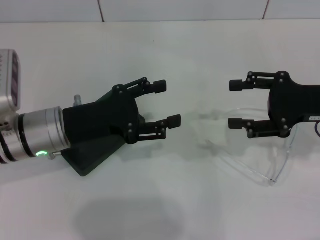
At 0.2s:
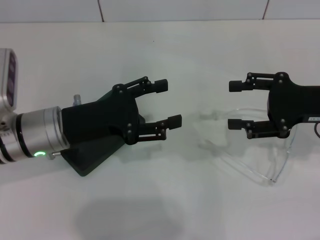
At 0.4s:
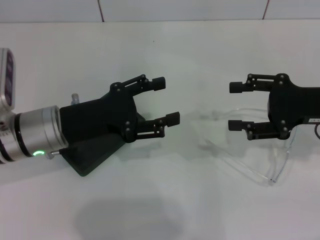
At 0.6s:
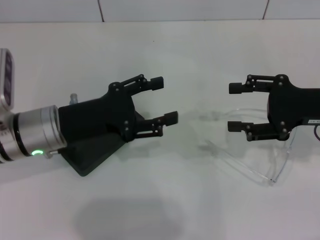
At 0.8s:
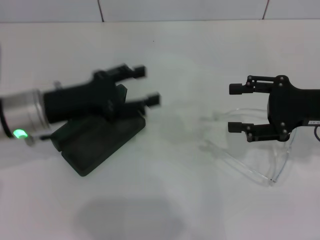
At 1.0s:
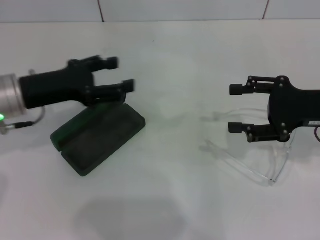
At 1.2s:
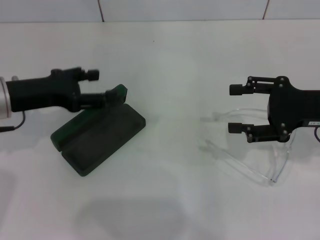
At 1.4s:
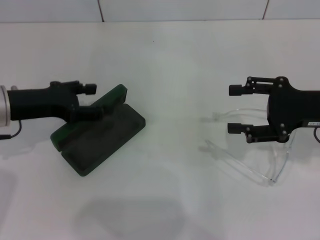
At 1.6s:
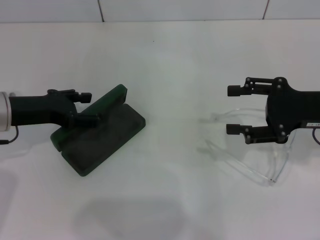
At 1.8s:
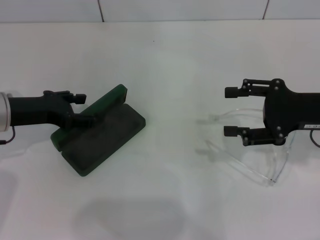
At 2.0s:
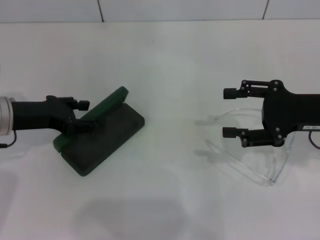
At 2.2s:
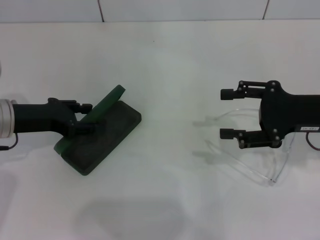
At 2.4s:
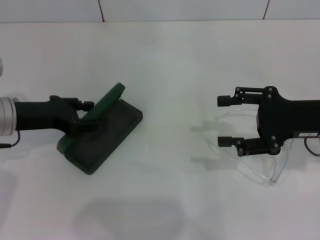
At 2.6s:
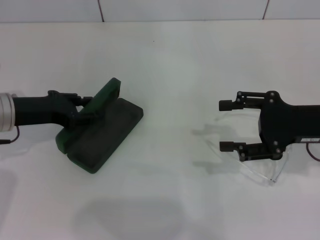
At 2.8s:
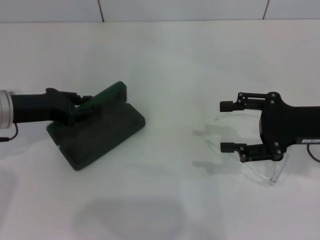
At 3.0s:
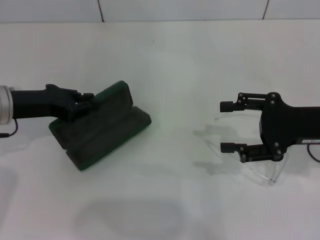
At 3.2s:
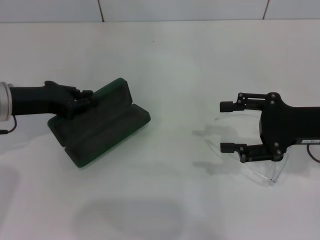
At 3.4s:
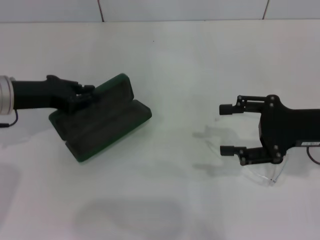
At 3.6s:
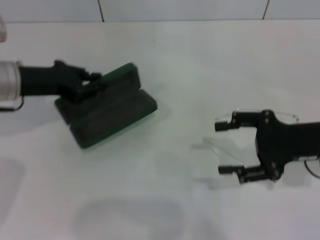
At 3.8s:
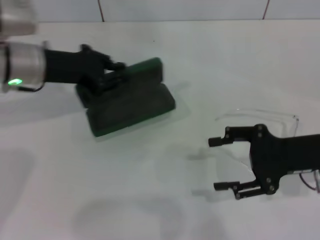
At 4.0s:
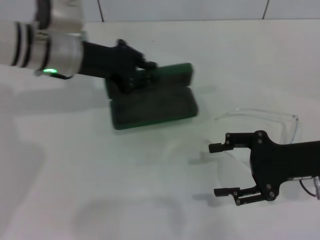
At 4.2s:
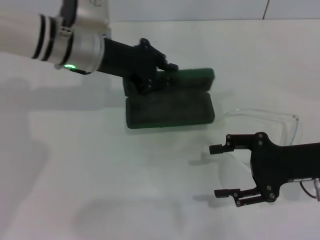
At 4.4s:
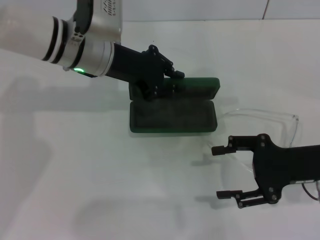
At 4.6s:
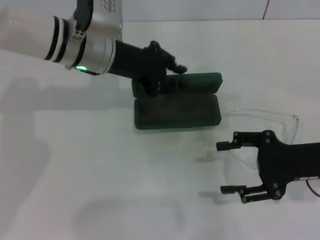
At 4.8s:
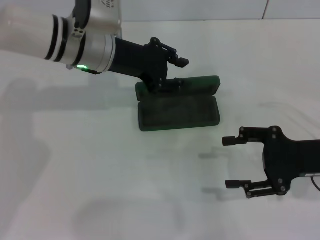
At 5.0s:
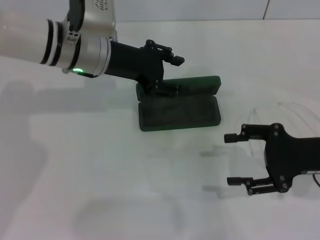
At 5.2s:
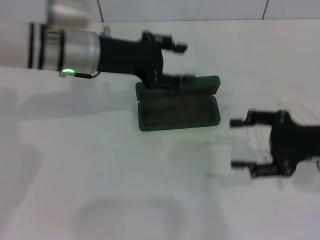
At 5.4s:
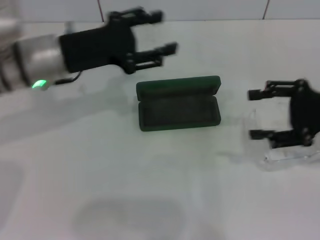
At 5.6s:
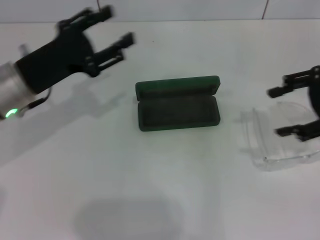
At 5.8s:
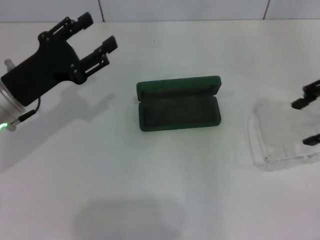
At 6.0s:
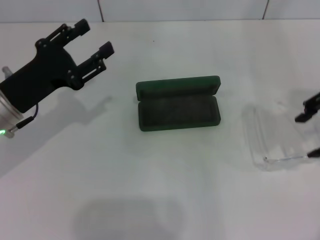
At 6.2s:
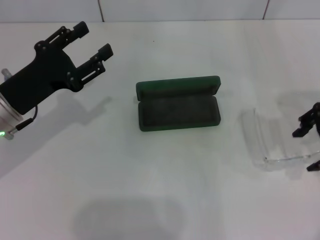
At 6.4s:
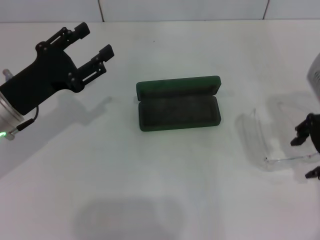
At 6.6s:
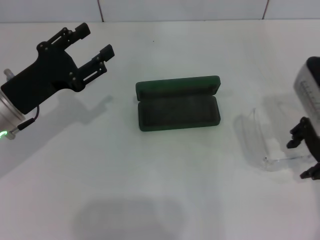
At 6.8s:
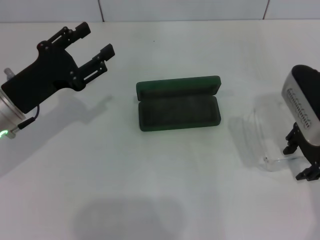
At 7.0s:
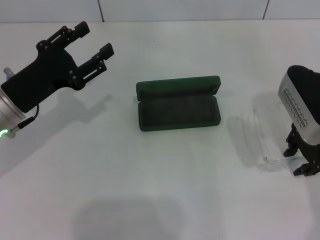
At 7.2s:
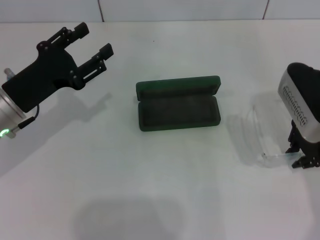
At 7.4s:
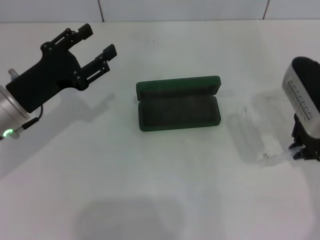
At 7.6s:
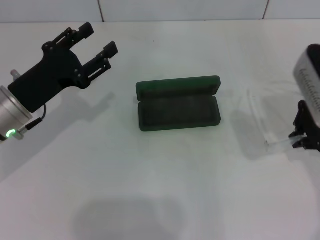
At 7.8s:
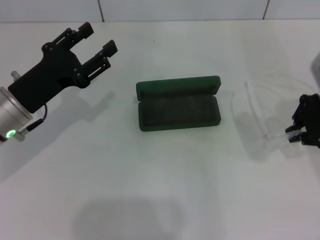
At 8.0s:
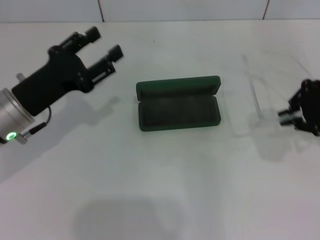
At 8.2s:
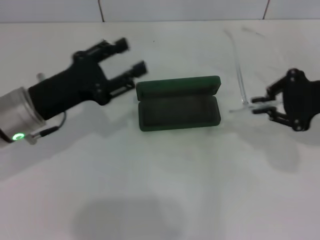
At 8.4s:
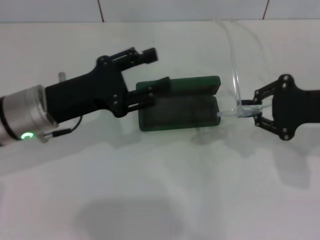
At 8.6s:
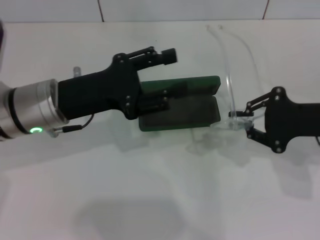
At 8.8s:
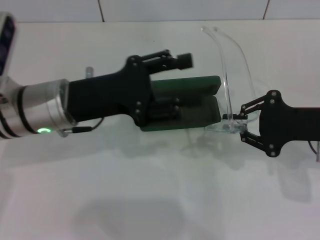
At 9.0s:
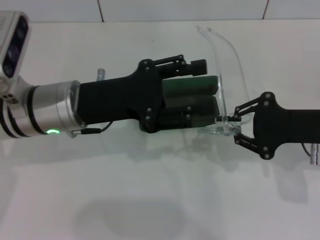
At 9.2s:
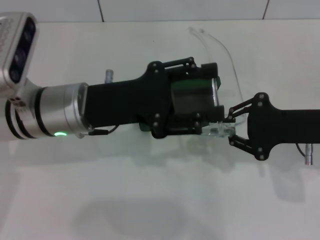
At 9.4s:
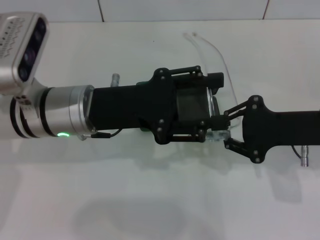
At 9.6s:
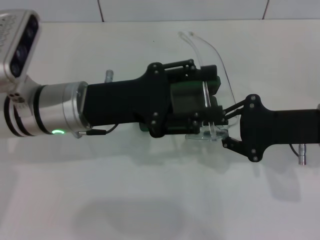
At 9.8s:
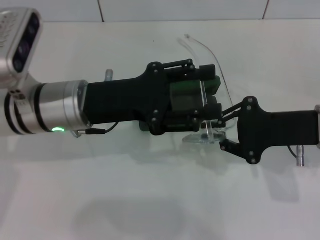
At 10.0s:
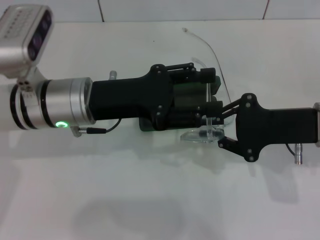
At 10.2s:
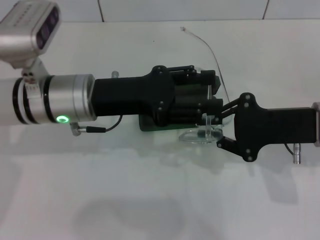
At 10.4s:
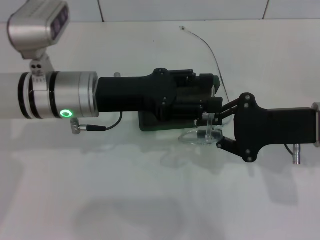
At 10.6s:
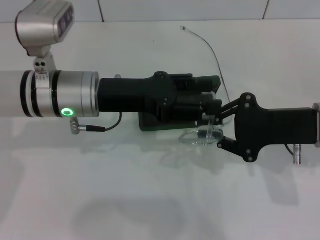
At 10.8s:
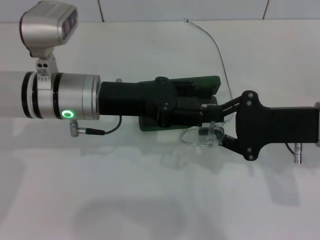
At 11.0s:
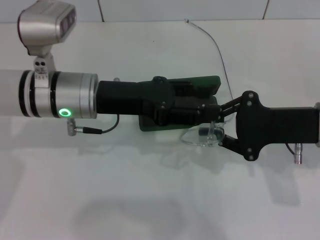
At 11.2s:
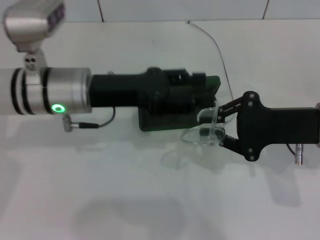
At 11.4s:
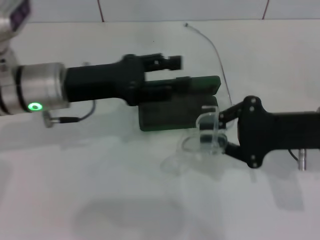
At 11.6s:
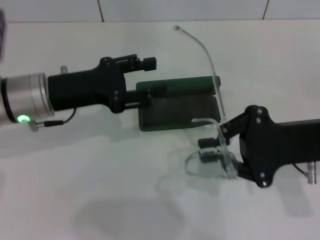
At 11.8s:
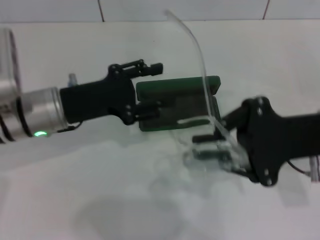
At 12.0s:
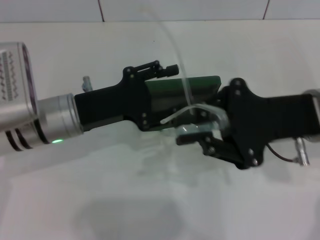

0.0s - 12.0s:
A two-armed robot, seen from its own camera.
Step, 0.0s - 2.6s: Grab the glasses case with your left hand.
Step, 3.0s - 4.6s: Place the glasses case in the center of the table with your left hand.
Step, 5.0s - 7.2s: Grab the eyeglass frame with your right hand.
0.0s - 1.6s: The left gripper goes roughly 10 cm to the left.
1.6s - 3.0s: The left gripper closes.
3.0s - 4.4s: The left gripper shifts some 15 cm to the right and forward.
4.4s - 6.0s: The left gripper heads to the left, backward and downward, covering some 15 cm, and opens up; the right gripper shifts roughly 15 cm upward.
6.0s - 7.6s: The right gripper shifts by approximately 5 cm, and closes up.
7.6s - 9.0s: The right gripper is displaced downward by some 5 cm, while the left gripper moves to the right, about 10 cm.
10.4s - 12.0s: The left gripper changes place by about 5 cm.

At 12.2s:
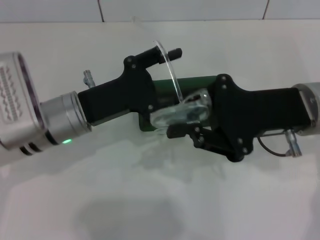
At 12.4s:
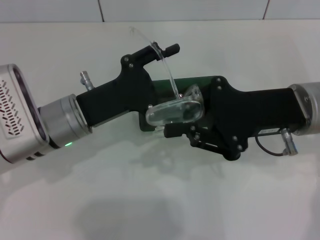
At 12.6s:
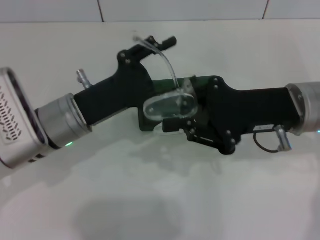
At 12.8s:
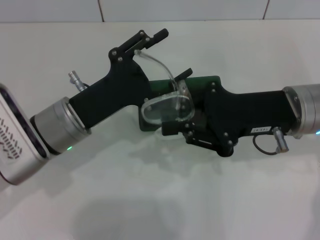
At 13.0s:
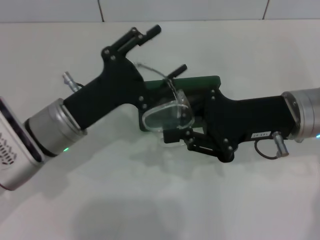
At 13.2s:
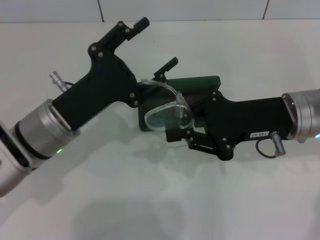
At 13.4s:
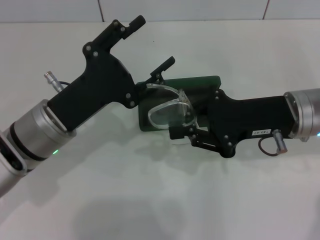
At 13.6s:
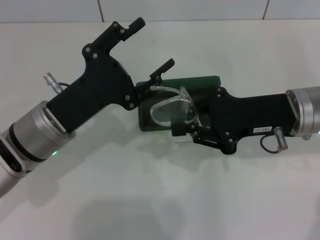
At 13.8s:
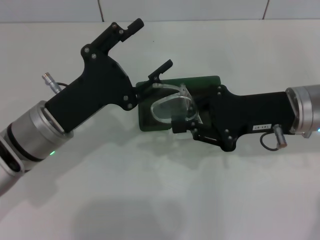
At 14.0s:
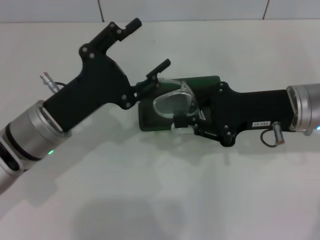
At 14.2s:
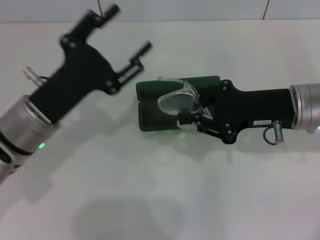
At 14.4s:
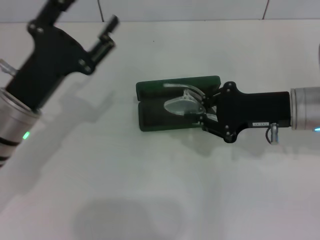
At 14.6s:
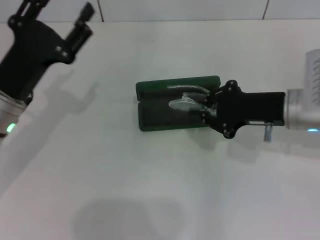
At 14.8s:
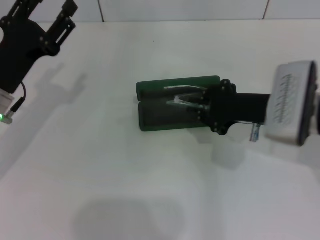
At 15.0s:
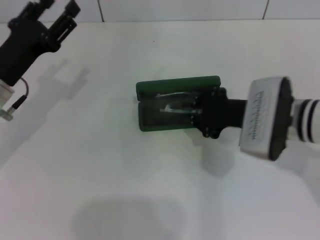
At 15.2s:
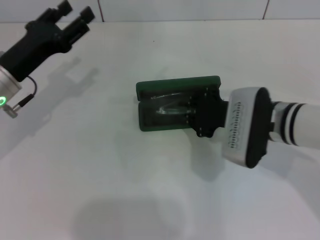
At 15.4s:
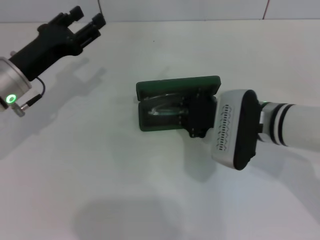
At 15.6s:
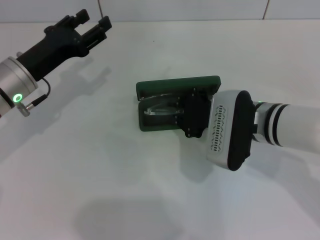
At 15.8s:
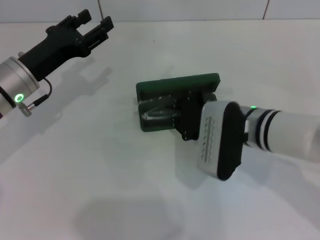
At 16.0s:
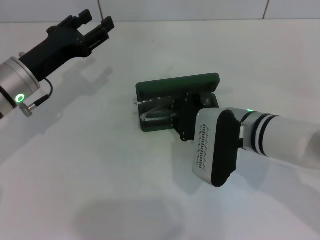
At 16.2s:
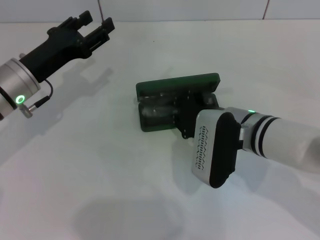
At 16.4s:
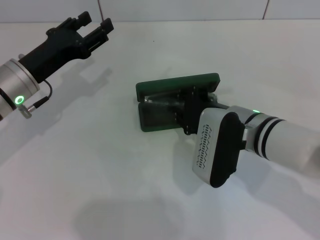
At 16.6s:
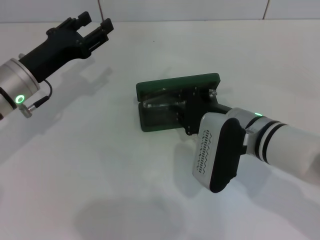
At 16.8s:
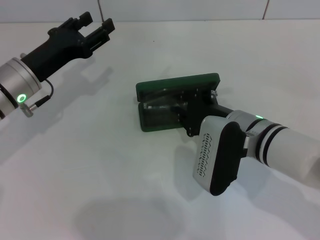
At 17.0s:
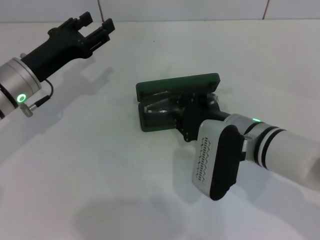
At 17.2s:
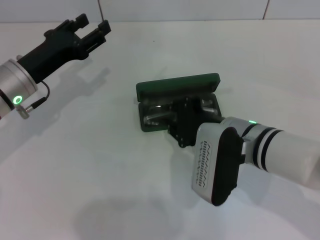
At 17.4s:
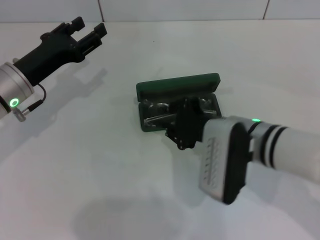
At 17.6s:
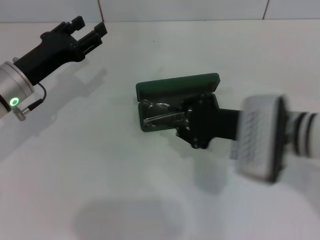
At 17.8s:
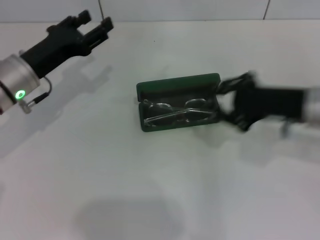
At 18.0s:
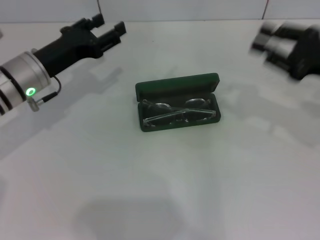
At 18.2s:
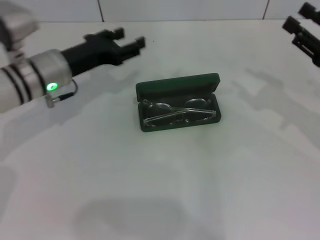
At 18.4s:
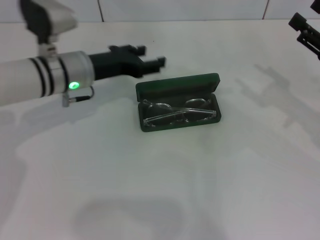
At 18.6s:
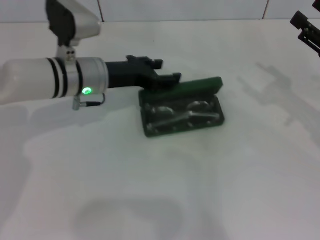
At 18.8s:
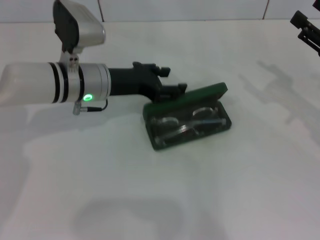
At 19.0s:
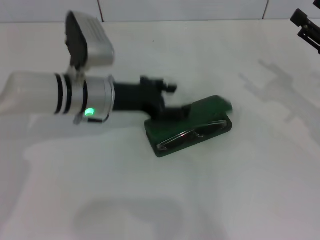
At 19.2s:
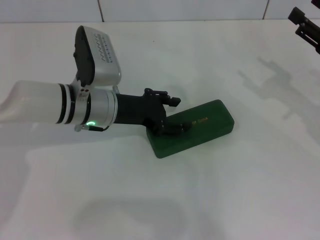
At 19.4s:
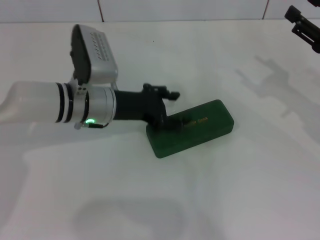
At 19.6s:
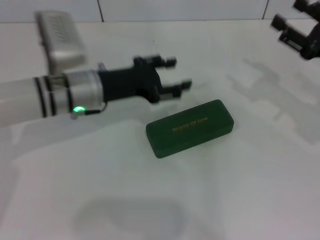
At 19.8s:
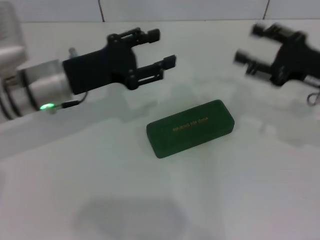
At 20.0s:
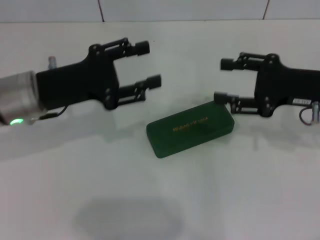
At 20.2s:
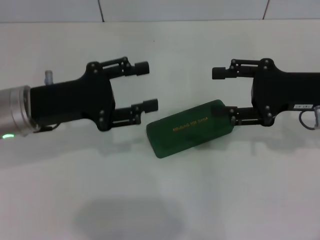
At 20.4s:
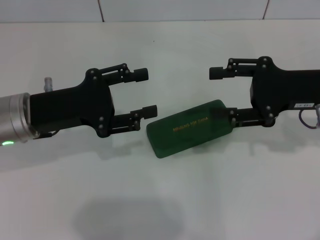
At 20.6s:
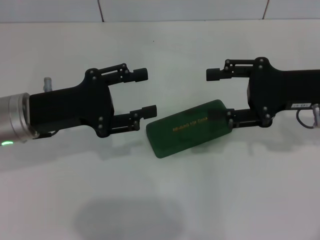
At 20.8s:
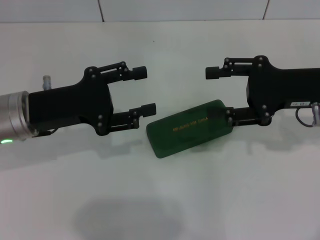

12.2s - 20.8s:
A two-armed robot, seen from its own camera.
Step, 14.2s - 17.2s: Put the glasses into the case with your right hand.
Step, 17.4s - 19.0s: Close the glasses case with your left hand.
13.6s - 15.0s: The right gripper shifts by about 5 cm. Meanwhile the left gripper heads to the left, covering about 10 cm.
15.0s - 16.6s: The right gripper moves roughly 5 cm.
16.6s - 18.0s: The right gripper moves to the right, approximately 20 cm.
18.0s - 19.4s: The left gripper is displaced to the right by some 10 cm; the right gripper opens up.
19.4s - 20.8s: The right gripper is displaced to the left by about 5 cm; the left gripper shifts roughly 10 cm to the left and backward.

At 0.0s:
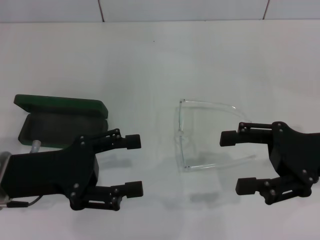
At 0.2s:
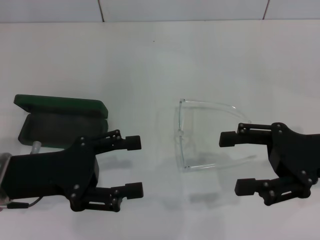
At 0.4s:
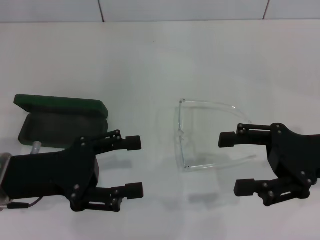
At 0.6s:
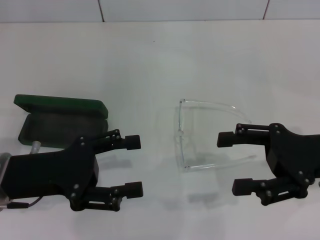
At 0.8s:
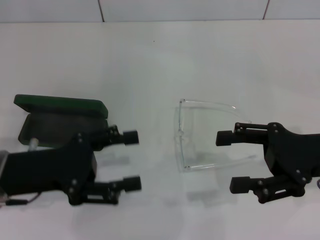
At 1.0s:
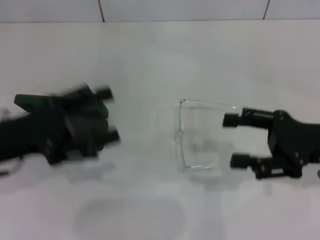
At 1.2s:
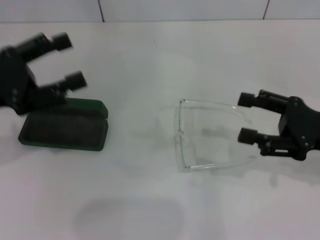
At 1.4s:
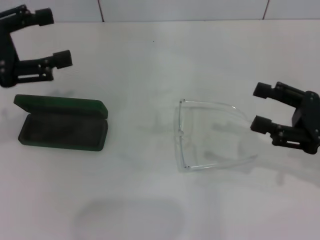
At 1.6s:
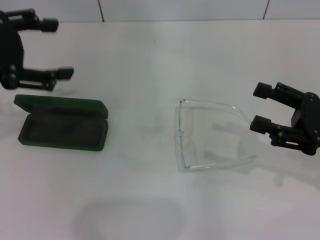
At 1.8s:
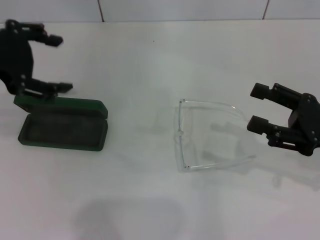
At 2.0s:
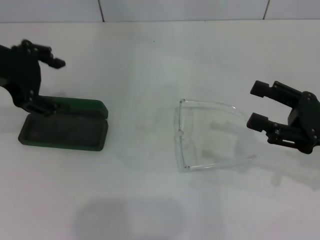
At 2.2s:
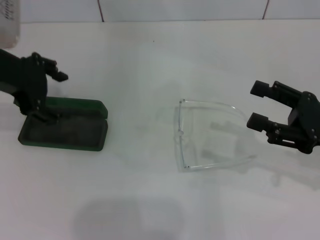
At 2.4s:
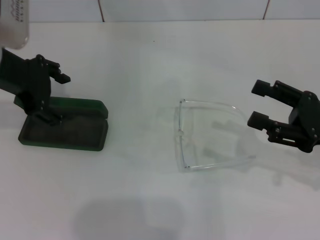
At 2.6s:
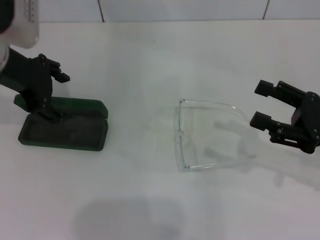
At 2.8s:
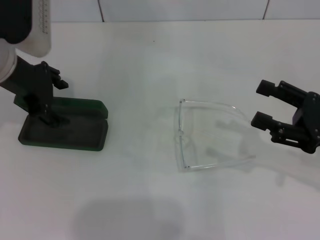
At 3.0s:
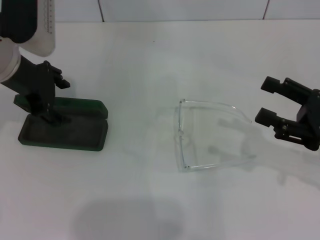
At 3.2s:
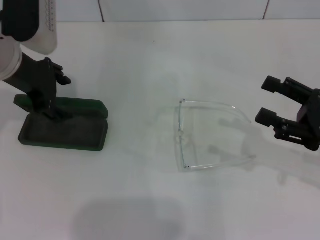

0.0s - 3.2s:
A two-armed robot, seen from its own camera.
0.0s - 1.6s: The left gripper is displaced upward and forward by approximately 15 cm.
1.6s - 3.2s: The left gripper goes about 10 cm forward, to the right and downward.
